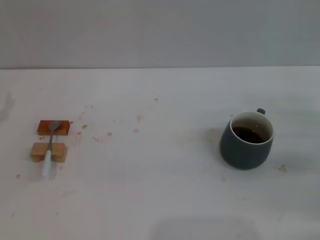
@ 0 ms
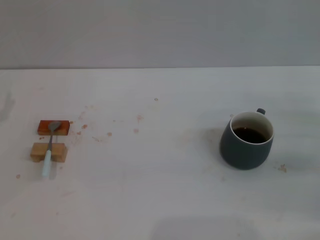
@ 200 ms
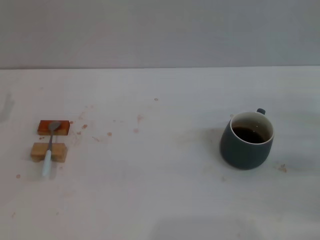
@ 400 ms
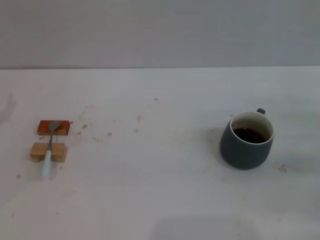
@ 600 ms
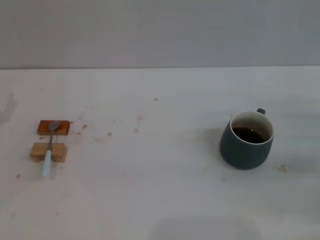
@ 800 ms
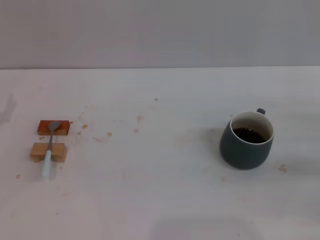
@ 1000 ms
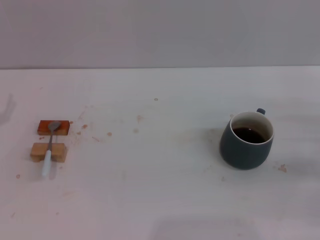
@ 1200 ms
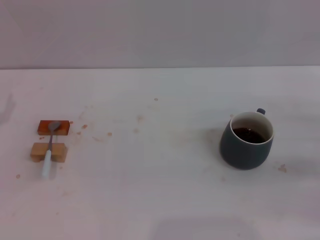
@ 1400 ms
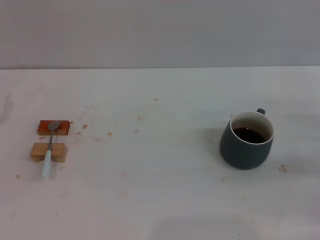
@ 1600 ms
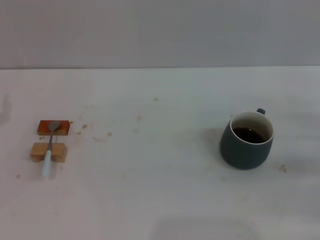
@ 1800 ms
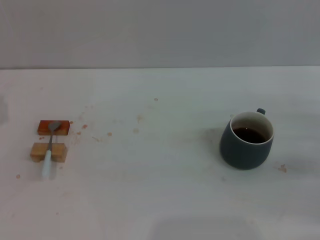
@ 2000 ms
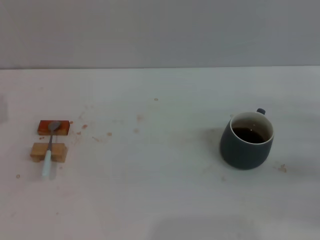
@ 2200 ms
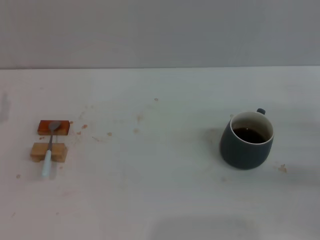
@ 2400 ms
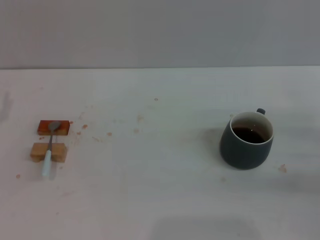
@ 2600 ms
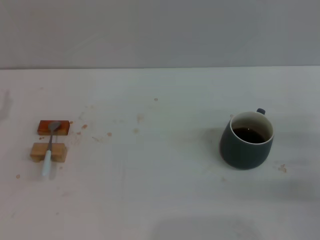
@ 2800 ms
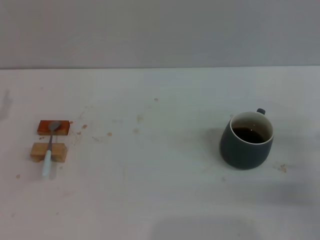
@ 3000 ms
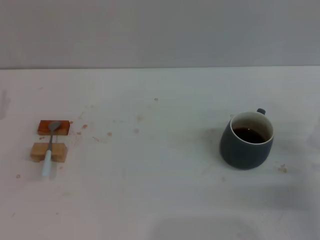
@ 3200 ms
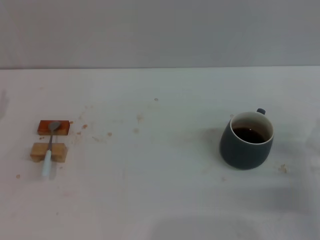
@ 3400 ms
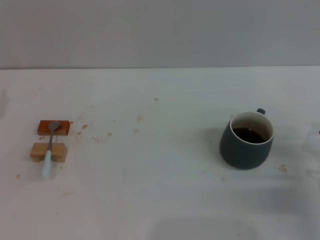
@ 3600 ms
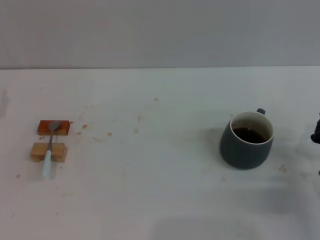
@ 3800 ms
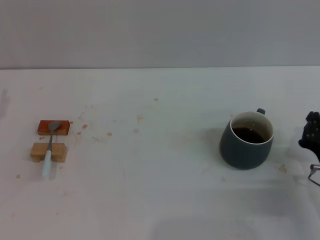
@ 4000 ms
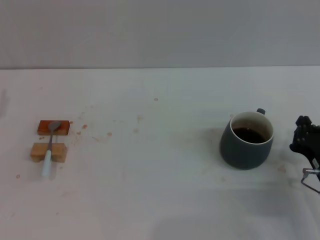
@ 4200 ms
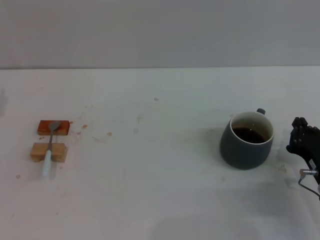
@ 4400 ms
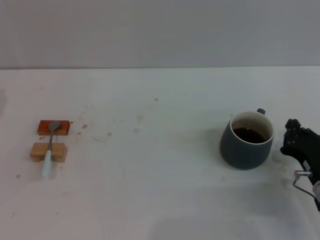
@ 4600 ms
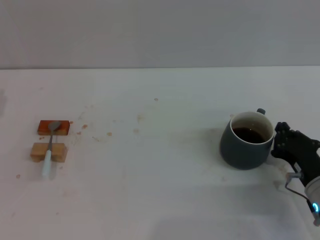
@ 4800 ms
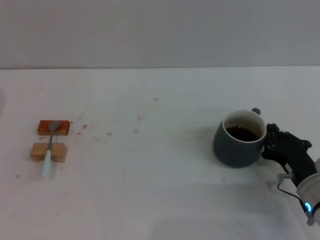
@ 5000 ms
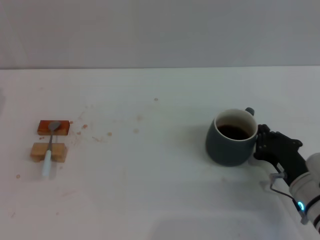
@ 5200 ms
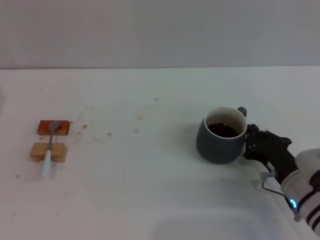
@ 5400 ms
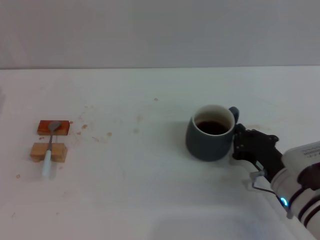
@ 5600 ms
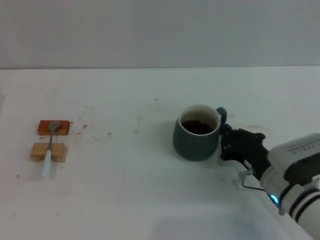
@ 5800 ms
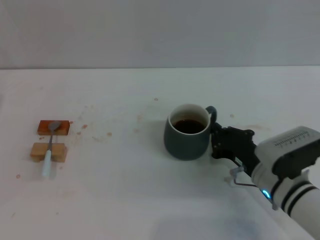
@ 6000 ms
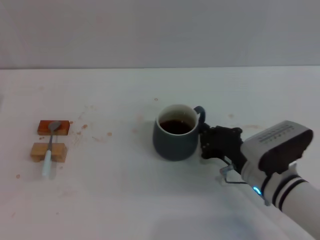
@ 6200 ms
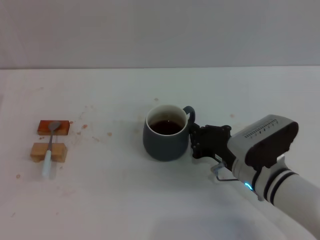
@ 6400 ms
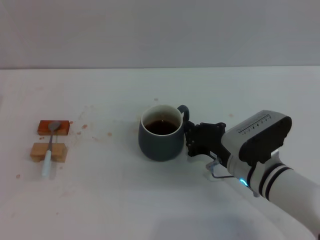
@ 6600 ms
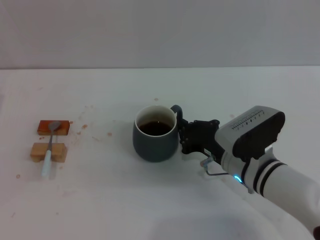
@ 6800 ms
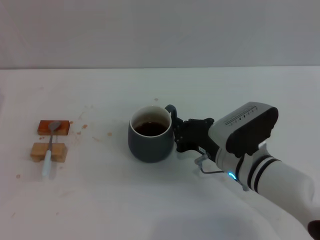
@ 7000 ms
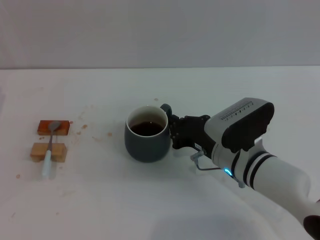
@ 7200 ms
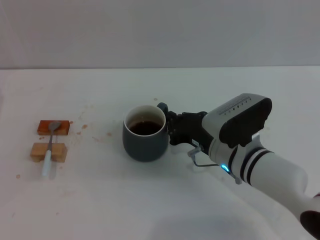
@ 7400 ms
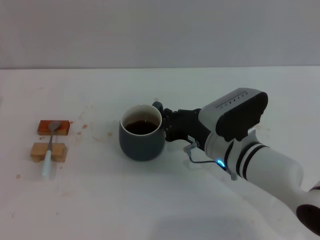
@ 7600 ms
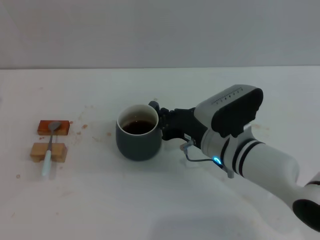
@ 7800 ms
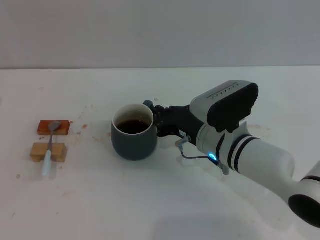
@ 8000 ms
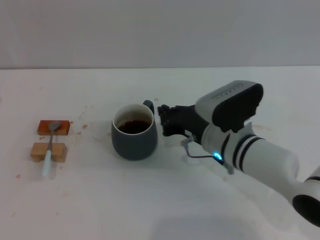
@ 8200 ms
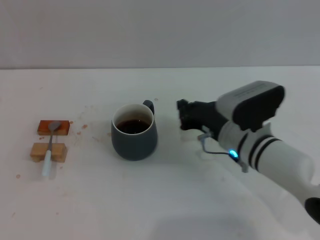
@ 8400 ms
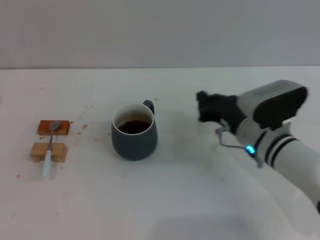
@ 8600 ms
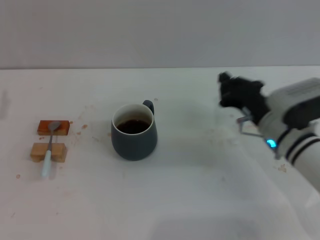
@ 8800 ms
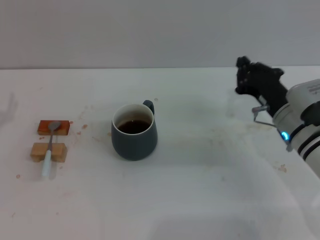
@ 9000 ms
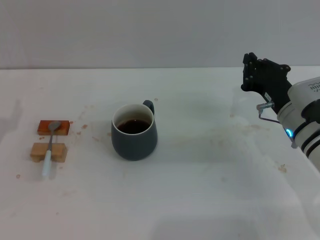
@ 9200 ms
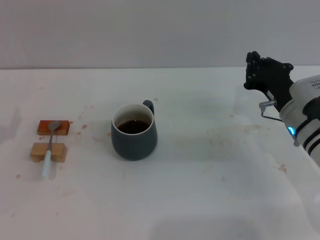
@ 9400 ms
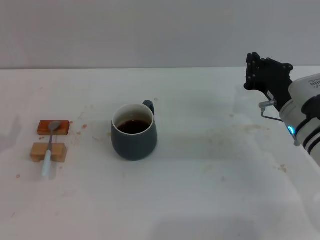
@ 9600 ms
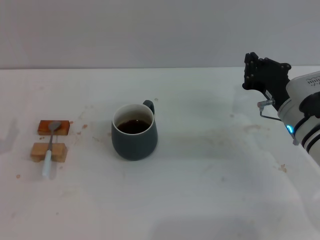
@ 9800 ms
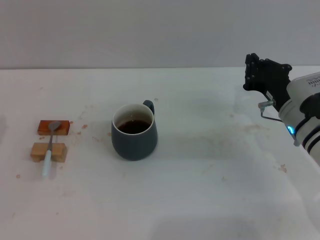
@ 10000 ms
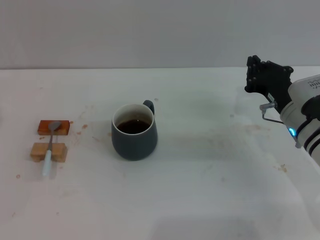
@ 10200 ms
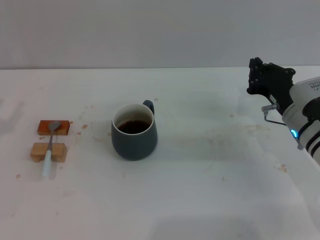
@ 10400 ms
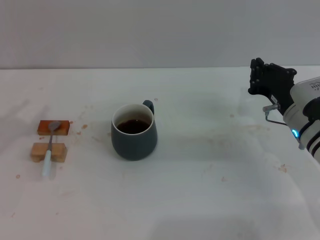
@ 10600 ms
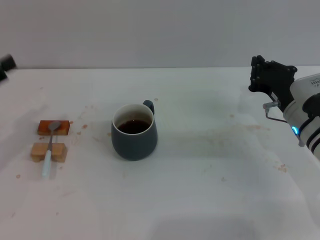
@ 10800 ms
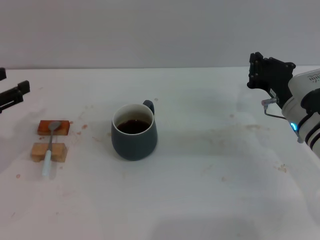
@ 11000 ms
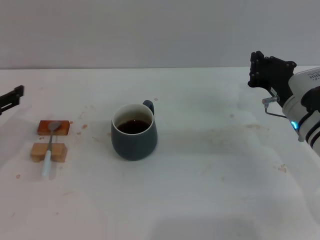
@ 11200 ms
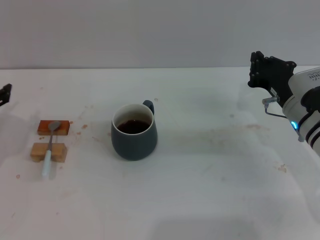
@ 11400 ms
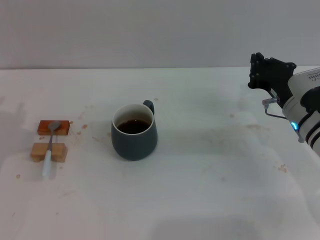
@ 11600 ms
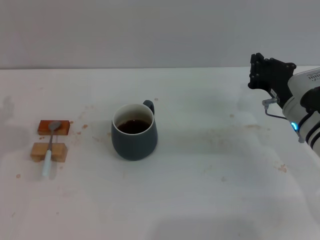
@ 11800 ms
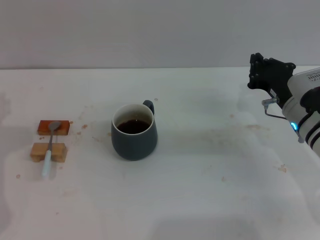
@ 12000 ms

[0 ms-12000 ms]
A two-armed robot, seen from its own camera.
Task of the whole recording: Move the grey cup to the center, lift the blue spoon, stir it three times in the cup, and put the spoon into the cup.
Step, 0 ms to 9600 ms: Move the cup with coffee to the center of view with the right gripper.
0 ms to 1600 ms: Neither gripper changes place.
1600 ms to 3000 ms: The right gripper shifts about 5 cm to the left, and closes.
3000 ms to 4400 ms: The right gripper travels to the left by some 5 cm.
4400 ms to 6000 ms: The right gripper heads to the left, covering about 10 cm.
6000 ms to 7600 ms: The right gripper shifts about 5 cm to the left.
7600 ms to 9000 ms: The right gripper moves to the right, about 10 cm.

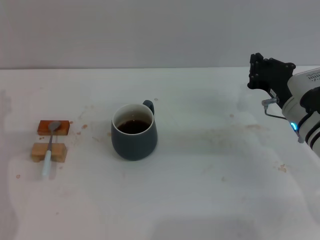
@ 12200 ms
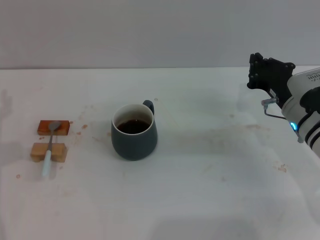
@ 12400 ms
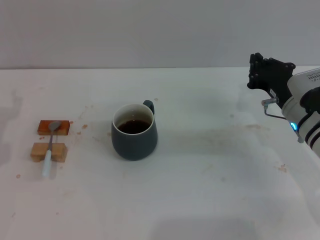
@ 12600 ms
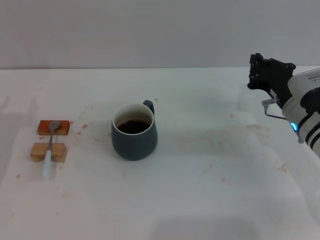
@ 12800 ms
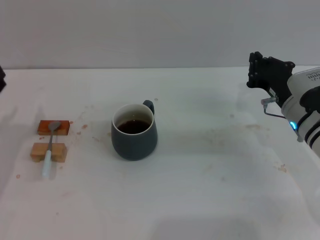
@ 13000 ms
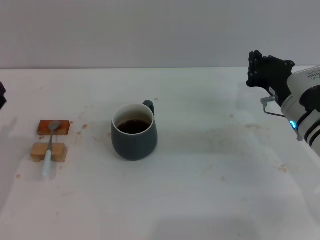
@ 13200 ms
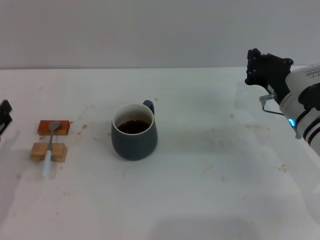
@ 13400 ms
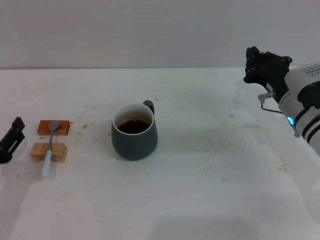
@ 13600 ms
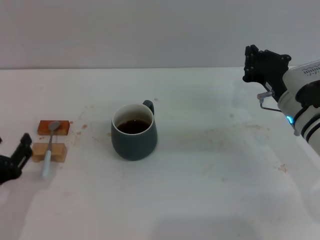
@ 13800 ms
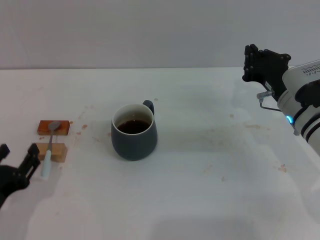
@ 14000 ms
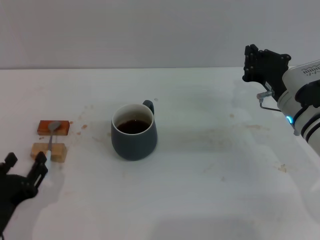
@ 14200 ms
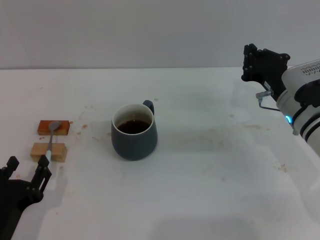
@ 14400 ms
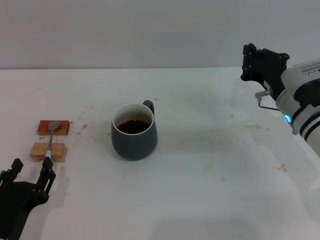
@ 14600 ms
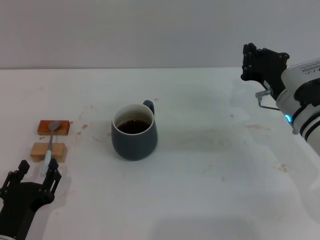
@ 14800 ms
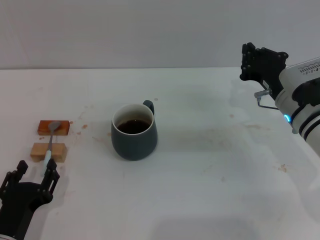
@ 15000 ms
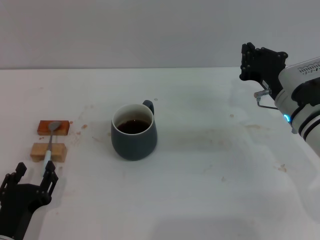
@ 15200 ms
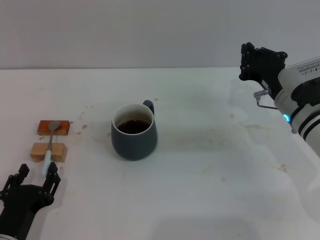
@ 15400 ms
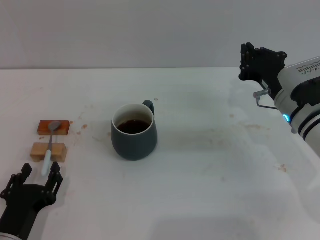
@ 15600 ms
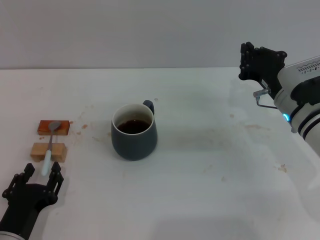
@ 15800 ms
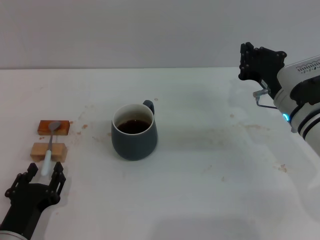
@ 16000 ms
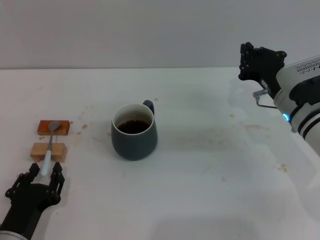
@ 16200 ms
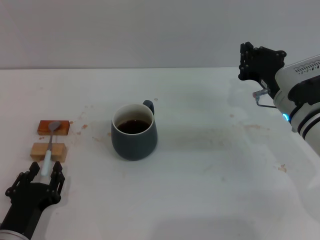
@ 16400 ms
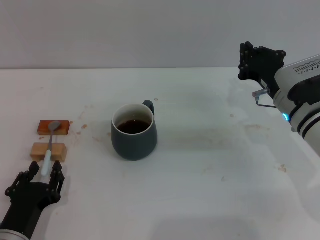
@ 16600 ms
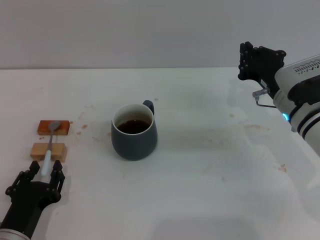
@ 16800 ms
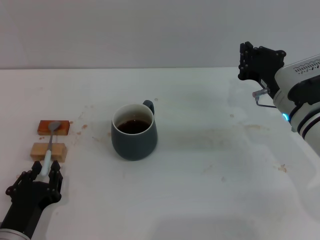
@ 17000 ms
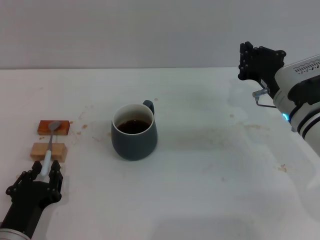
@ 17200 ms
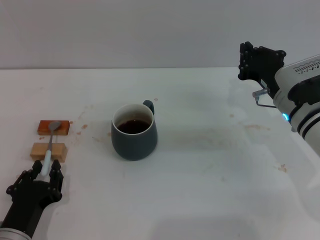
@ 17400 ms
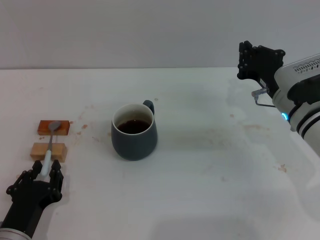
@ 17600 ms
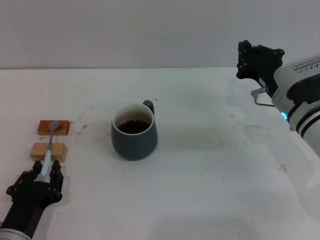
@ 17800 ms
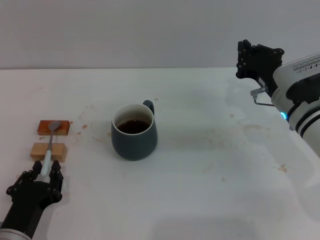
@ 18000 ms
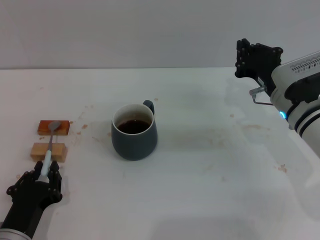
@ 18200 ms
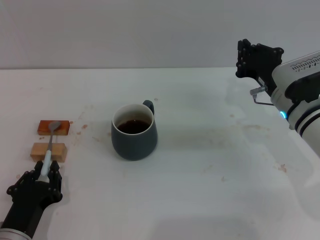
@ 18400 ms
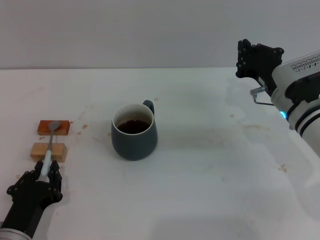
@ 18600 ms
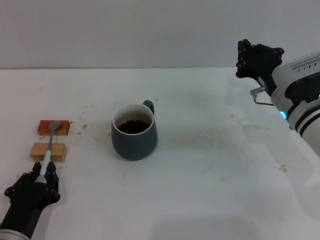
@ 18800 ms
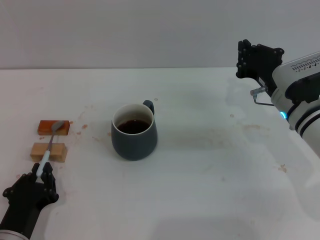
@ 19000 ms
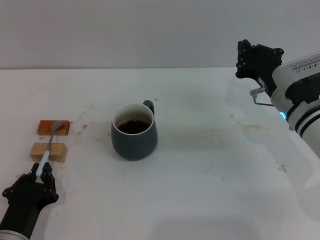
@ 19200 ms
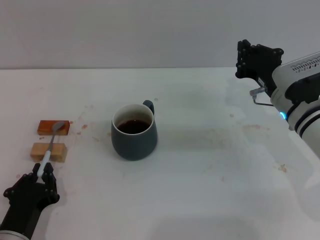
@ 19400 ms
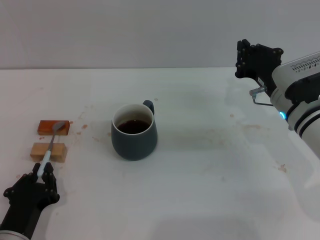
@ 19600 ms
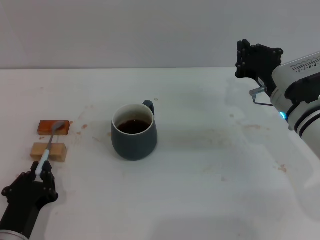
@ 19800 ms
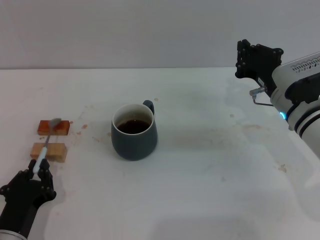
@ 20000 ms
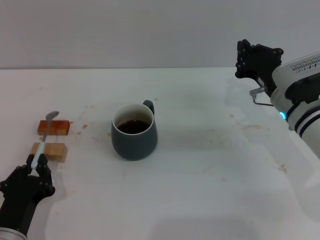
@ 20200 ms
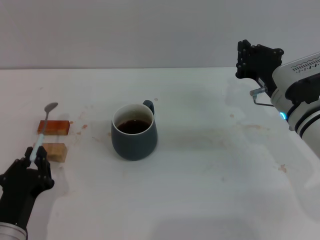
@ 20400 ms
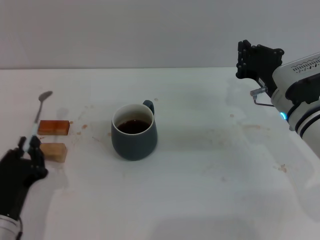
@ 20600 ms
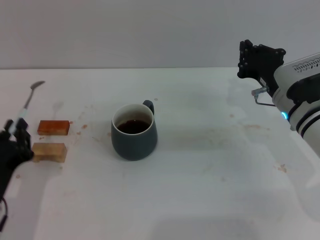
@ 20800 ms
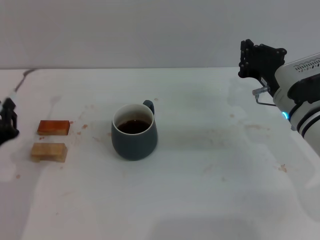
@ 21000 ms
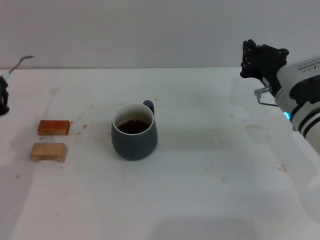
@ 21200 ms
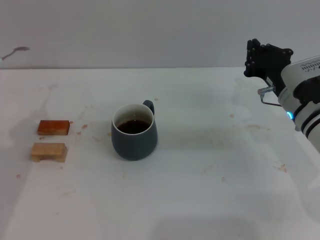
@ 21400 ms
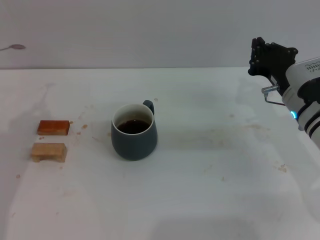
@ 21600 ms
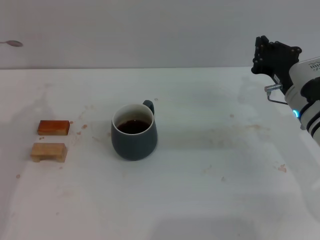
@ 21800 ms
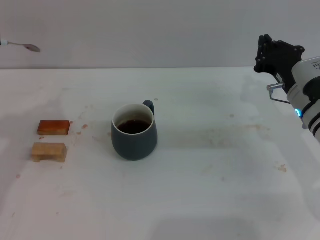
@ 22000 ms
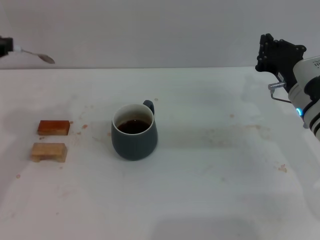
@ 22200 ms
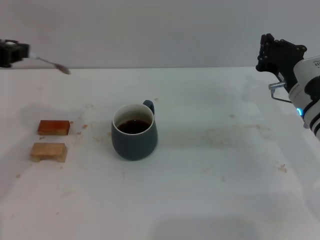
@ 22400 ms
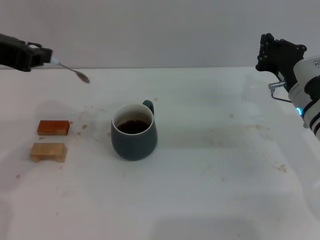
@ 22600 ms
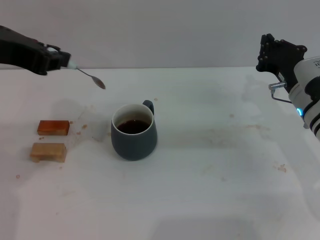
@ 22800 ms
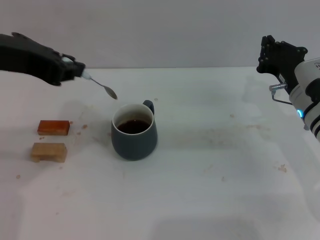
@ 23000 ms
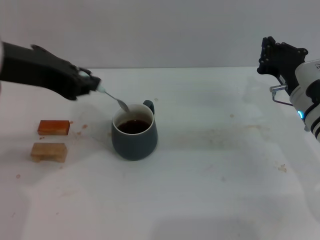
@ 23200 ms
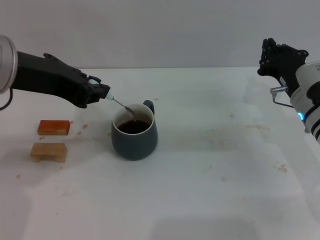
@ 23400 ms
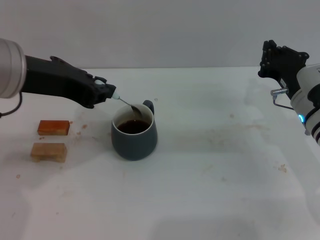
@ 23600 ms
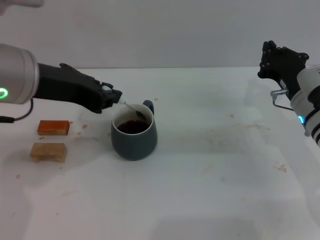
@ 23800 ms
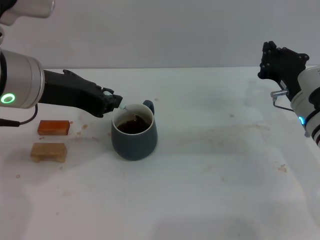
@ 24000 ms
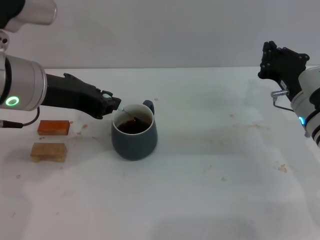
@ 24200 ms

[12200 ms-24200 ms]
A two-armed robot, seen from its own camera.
Task of the whole recording: Move the grey cup to the center, lift the blue spoon, stir it three times in the cup, and put the spoon into the cup.
Step, 12200 ms to 21000 ms: Pick up the spoon with the left gripper.
12200 ms to 13800 ms: The left gripper heads backward, covering about 15 cm.
13800 ms to 15200 ms: The left gripper moves downward, some 10 cm.
15200 ms to 19800 ms: Neither gripper changes place.
19800 ms to 21200 ms: The left gripper shifts roughly 15 cm upward and forward.
21200 ms to 22600 ms: The left gripper shifts approximately 20 cm upward.
22600 ms to 24200 ms: The left gripper shifts some 10 cm downward and to the right.
